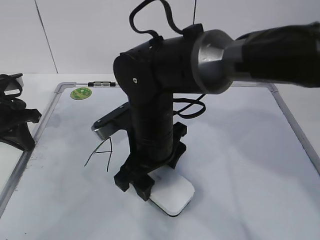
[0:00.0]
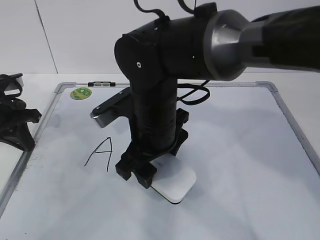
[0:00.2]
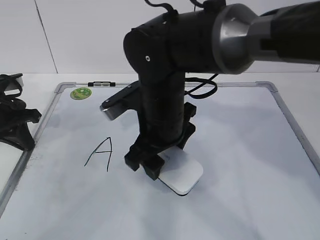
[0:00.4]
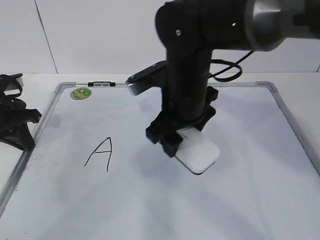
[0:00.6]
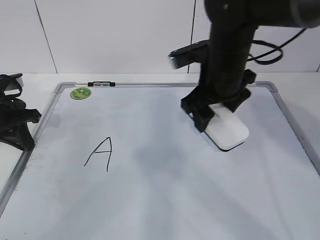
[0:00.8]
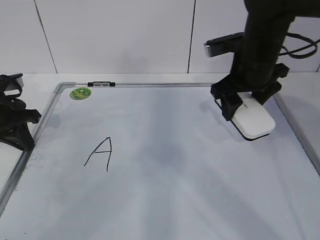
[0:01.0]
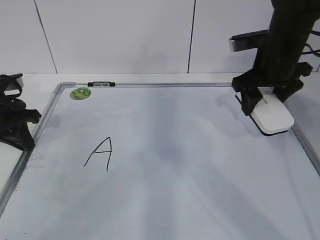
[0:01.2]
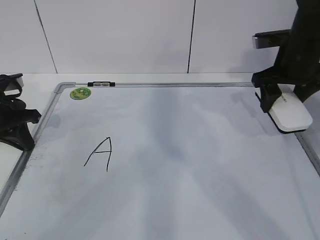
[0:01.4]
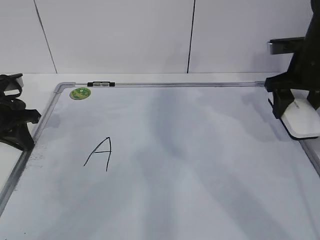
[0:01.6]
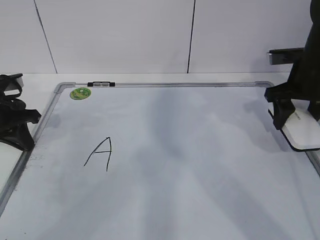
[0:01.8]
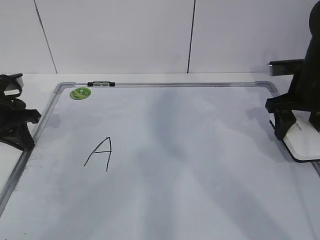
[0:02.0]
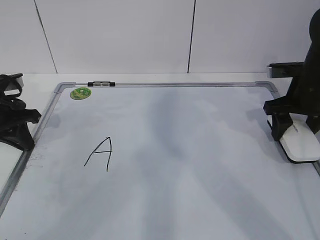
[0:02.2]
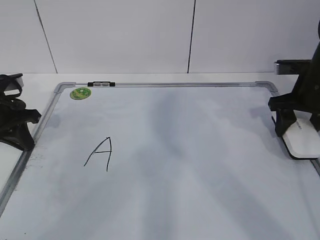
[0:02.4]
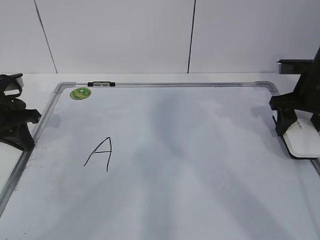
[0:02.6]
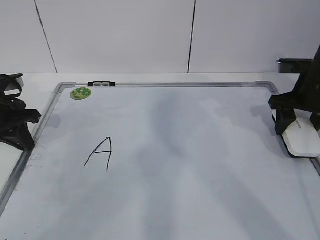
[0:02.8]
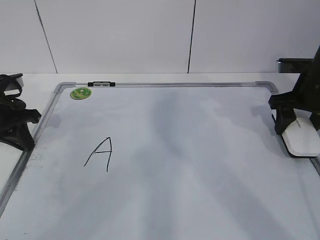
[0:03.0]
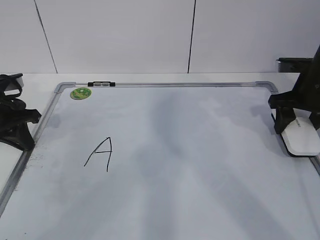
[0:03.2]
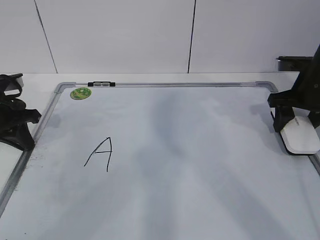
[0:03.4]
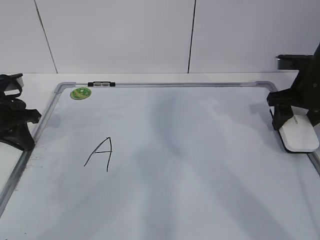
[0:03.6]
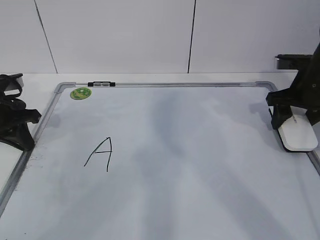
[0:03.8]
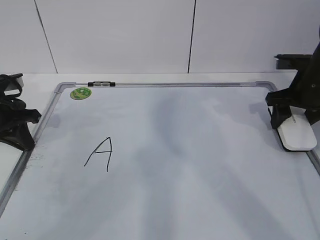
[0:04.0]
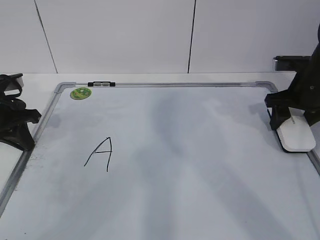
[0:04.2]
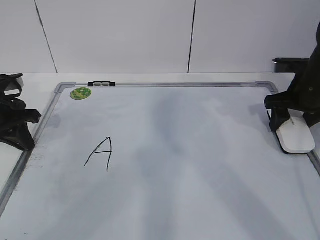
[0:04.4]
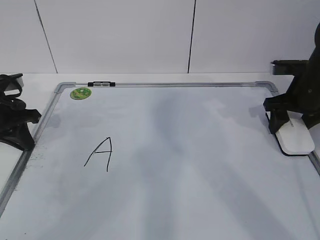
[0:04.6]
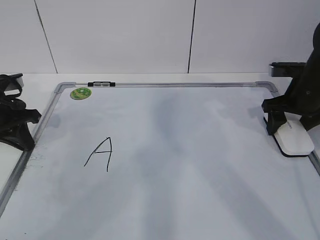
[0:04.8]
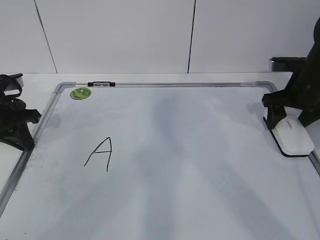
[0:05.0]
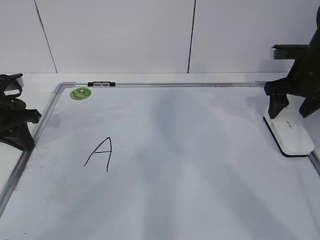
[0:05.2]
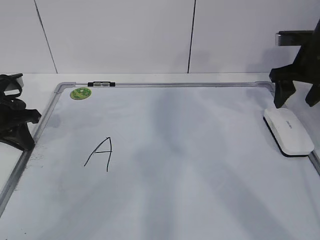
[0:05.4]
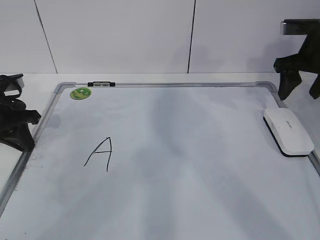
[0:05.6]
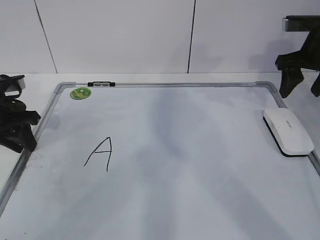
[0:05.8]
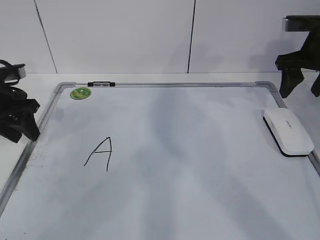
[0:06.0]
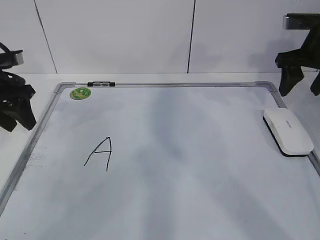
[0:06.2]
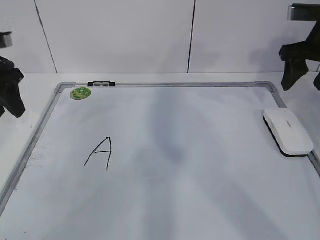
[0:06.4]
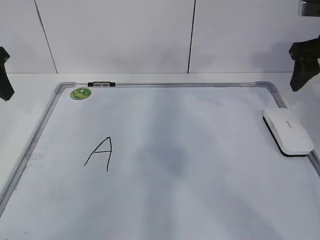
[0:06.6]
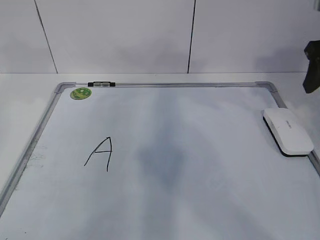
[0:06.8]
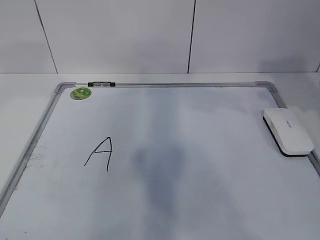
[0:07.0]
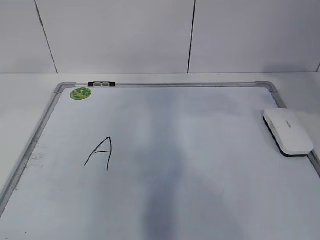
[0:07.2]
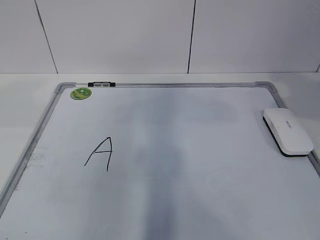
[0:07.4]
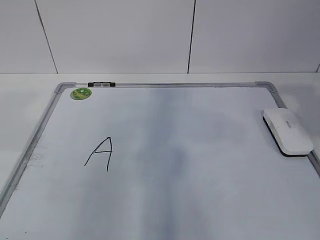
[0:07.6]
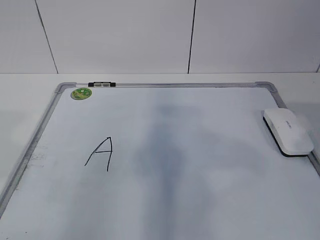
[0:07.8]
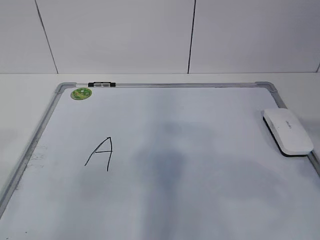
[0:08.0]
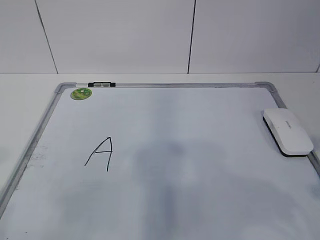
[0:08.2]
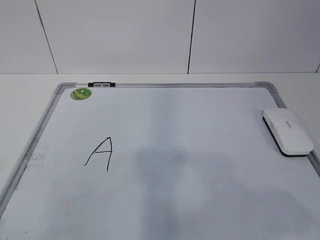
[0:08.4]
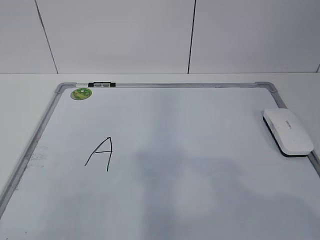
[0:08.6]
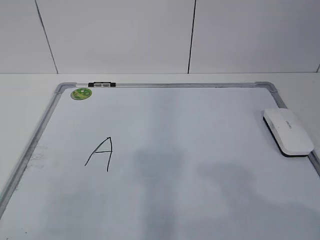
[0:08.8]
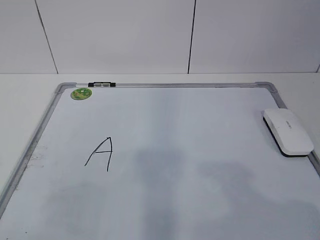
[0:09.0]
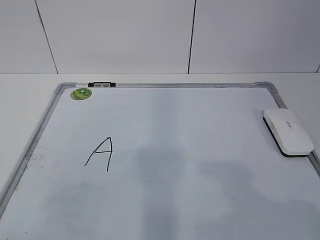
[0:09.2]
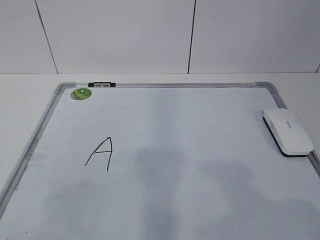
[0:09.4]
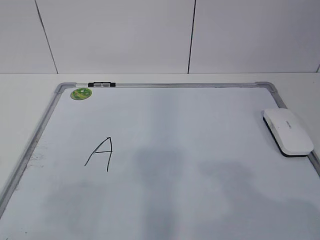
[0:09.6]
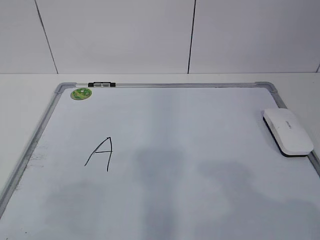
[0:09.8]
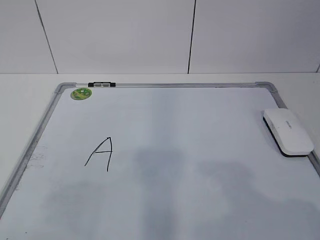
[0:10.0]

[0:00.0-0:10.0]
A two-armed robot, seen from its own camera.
Task of the whole recording: pick up the eraser on the blackboard and erase the letter "a".
0:00.0 to 0:01.4: The right gripper goes approximately 30 cm to the right and forward.
0:01.4 to 0:02.8: The right gripper moves about 5 cm.
0:02.8 to 0:04.2: There are only small adjustments of the grippers.
0:04.2 to 0:05.8: The right gripper travels upward by roughly 10 cm. The left gripper opens.
0:05.8 to 0:07.2: The right gripper goes approximately 20 cm backward and upward. Meanwhile the left gripper goes about 25 cm upward and backward, and opens.
0:07.2 to 0:08.6: The right gripper goes about 20 cm backward; the left gripper heads backward and downward, covering roughly 25 cm.

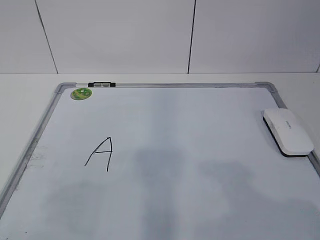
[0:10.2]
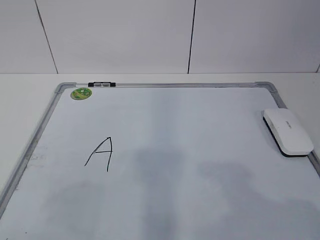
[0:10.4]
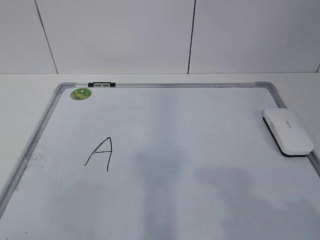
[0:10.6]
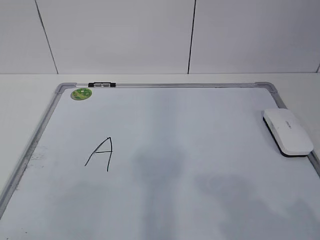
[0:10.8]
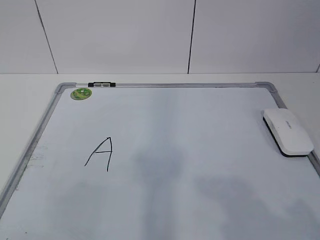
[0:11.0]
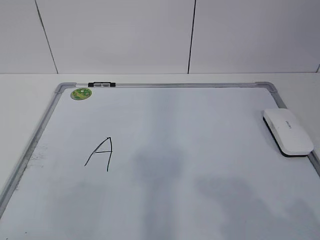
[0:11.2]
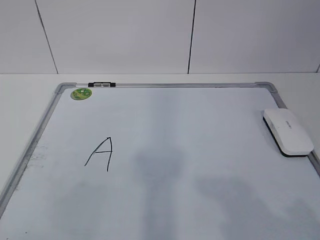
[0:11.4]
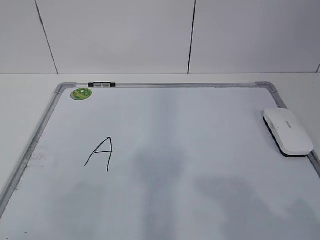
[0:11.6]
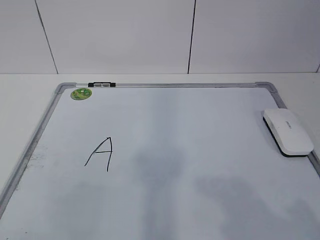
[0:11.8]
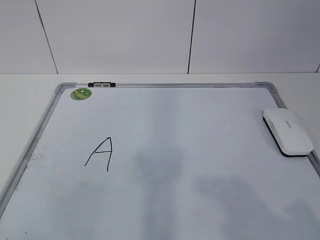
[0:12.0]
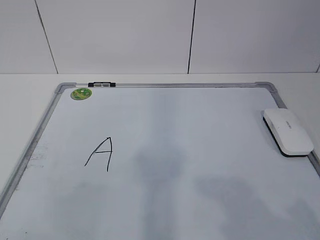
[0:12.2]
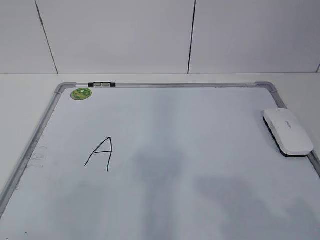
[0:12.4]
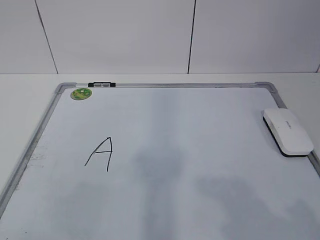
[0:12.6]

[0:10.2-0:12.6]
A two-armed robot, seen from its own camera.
Task of the whole recording: pick up the eraser on the blackboard and erase the letter "a".
0:11.4 to 0:12.6: Both grippers stay put.

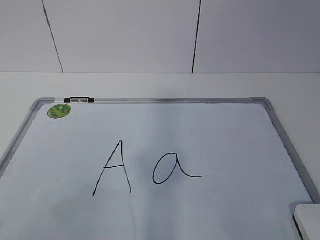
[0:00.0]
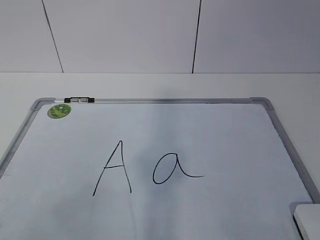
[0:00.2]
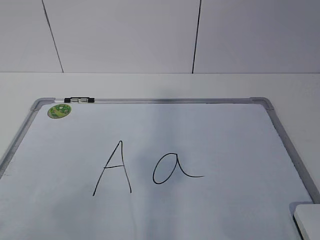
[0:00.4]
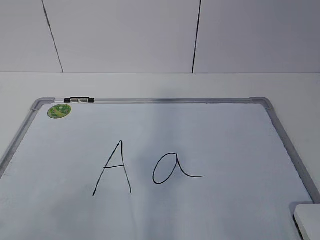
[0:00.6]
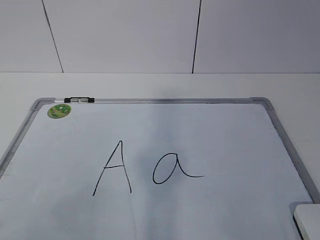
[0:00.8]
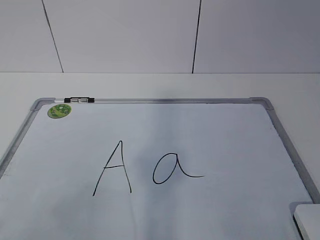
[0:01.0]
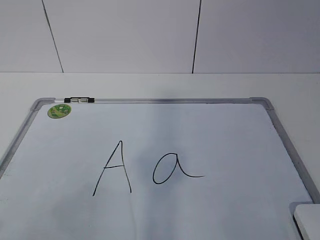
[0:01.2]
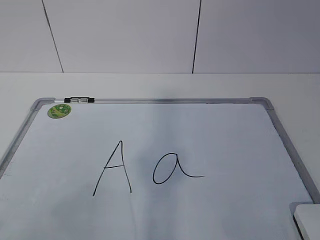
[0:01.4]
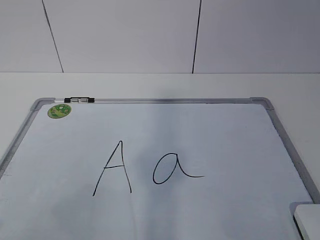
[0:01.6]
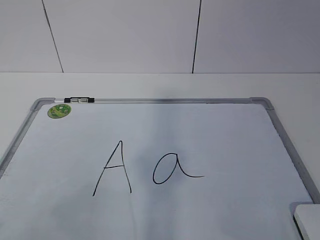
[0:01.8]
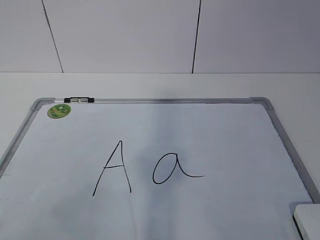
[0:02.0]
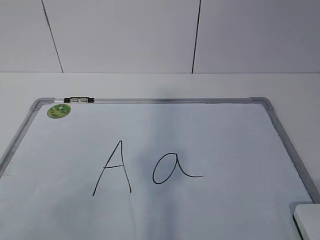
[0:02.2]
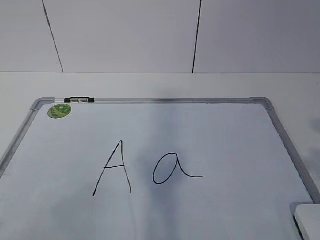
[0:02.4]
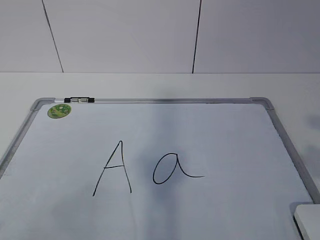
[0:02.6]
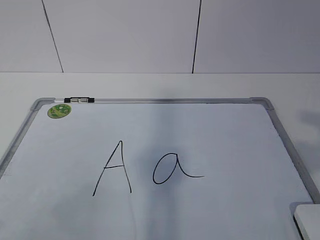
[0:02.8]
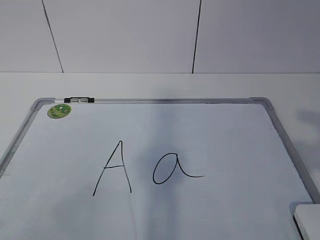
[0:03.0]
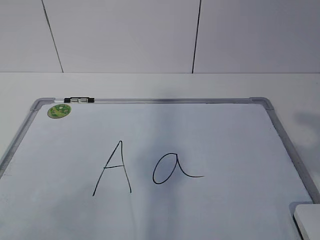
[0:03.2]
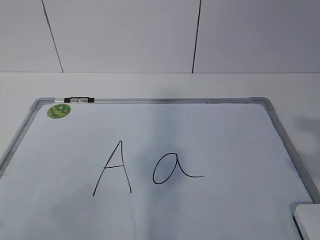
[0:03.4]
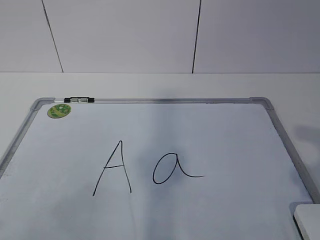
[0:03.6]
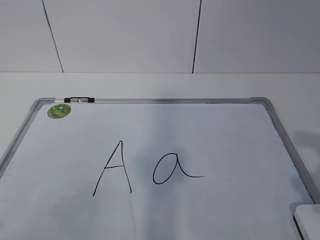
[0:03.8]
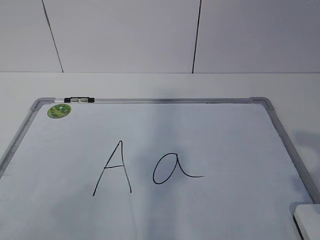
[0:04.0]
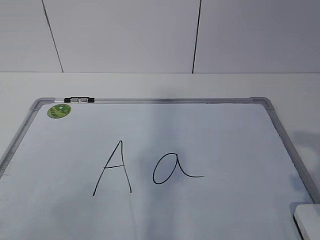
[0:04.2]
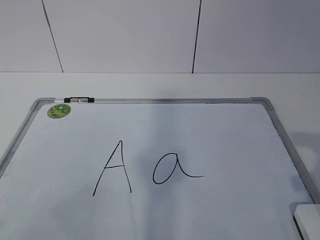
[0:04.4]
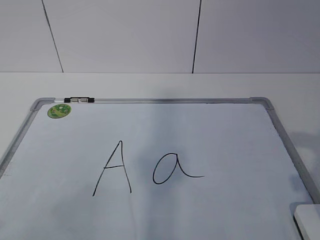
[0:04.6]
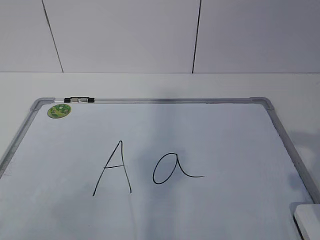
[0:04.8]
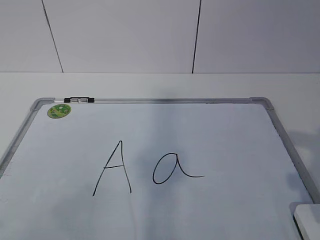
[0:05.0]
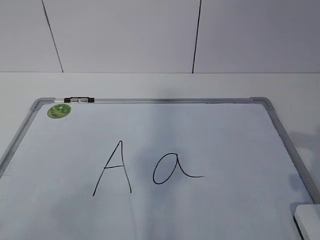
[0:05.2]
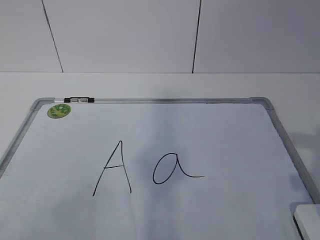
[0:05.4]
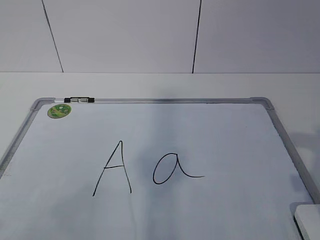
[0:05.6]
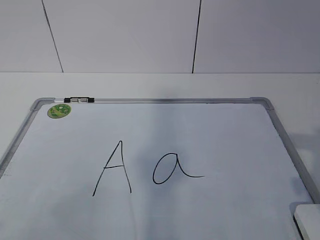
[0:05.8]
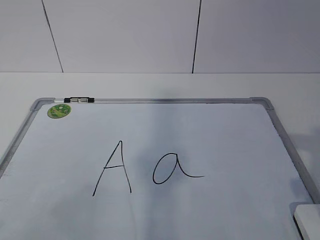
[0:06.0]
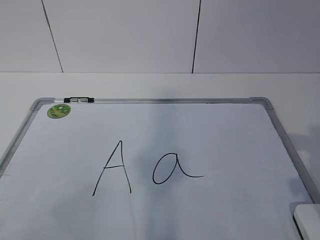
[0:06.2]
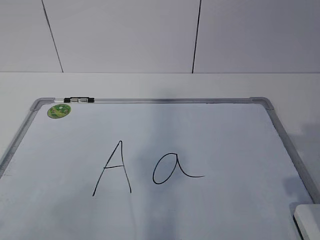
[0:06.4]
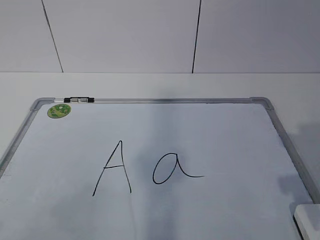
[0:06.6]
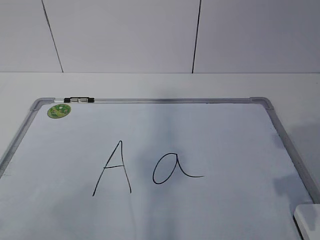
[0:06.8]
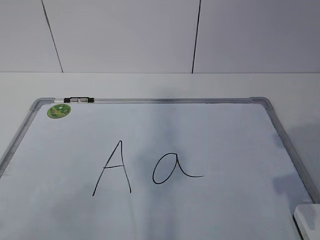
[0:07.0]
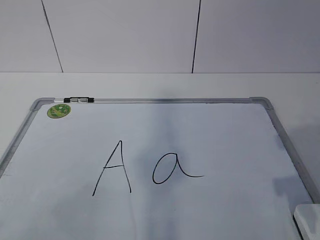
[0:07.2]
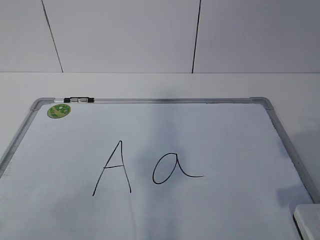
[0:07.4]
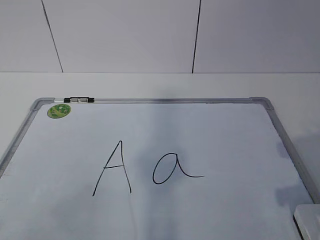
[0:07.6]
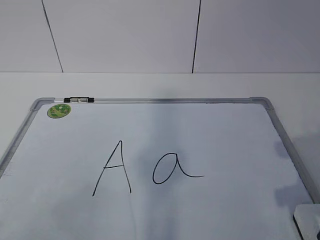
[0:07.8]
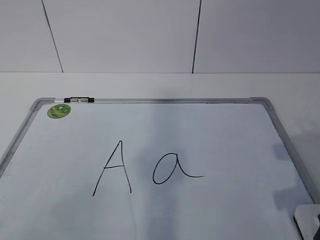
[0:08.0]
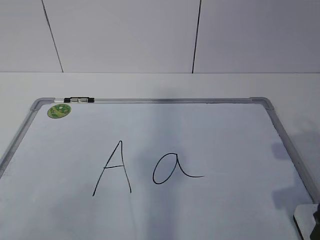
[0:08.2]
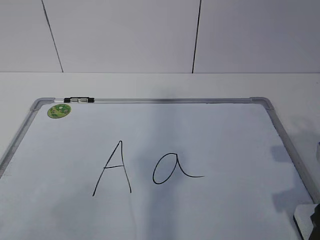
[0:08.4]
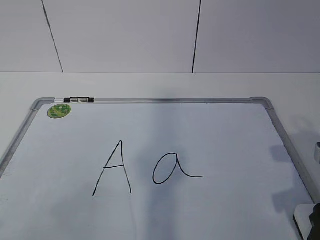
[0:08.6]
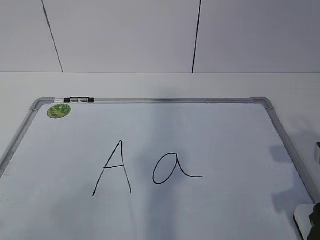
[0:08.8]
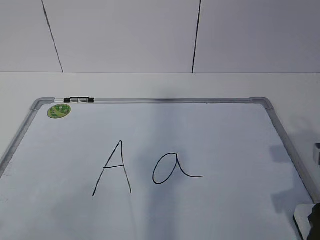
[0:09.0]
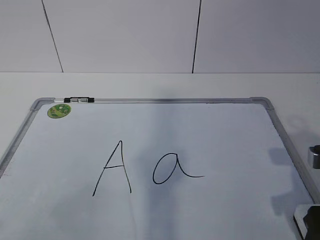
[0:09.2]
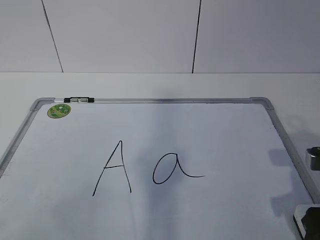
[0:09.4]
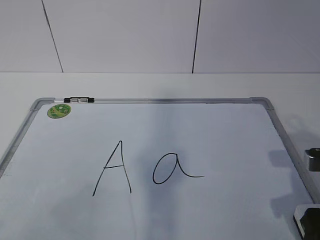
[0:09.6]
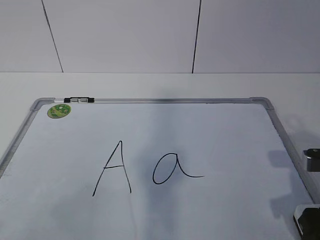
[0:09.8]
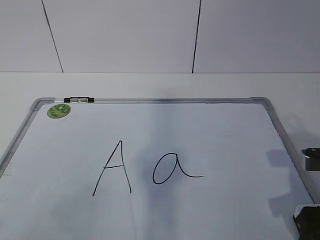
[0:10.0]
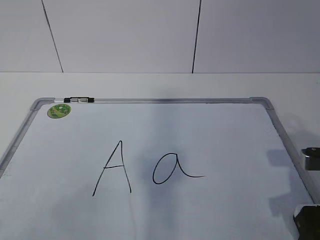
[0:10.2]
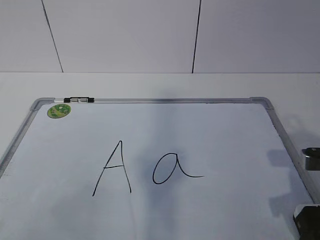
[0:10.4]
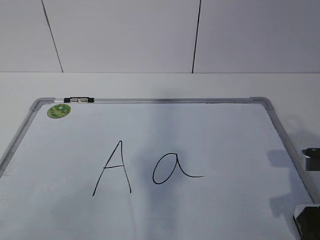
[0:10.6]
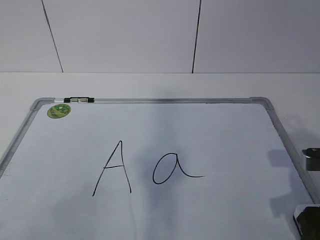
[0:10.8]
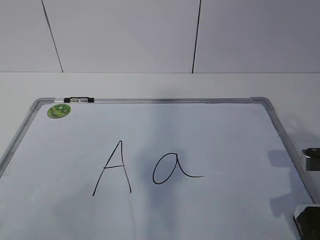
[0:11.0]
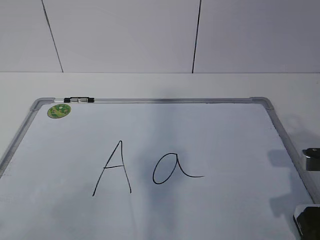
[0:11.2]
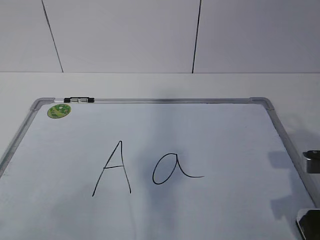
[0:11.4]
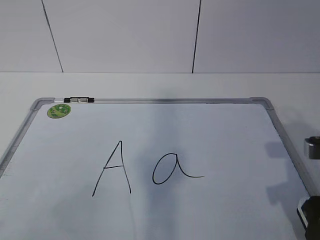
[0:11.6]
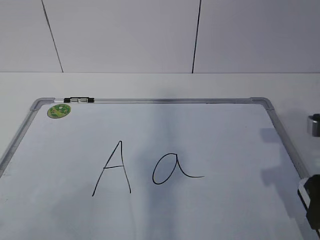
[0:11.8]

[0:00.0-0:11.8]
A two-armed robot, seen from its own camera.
Task of the whole recording: pick up the eraser on the blackboard and erase the letter "a".
0:08.8 to 0:10.4: The grippers stay close to where they were, moving slightly.
0:10.4 to 0:11.8: The right gripper shifts some 5 cm upward.
